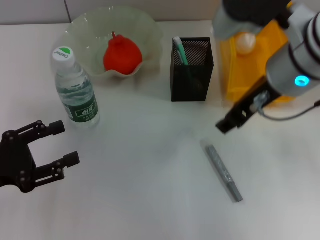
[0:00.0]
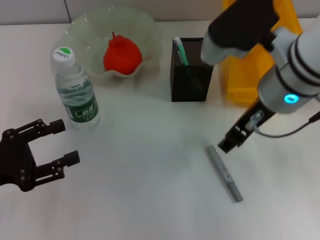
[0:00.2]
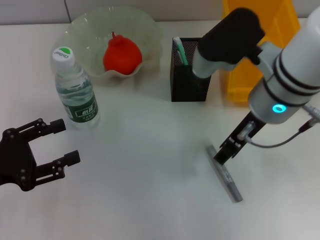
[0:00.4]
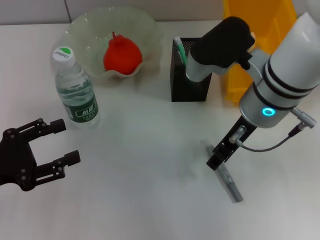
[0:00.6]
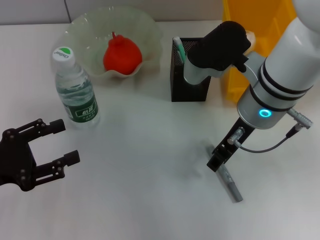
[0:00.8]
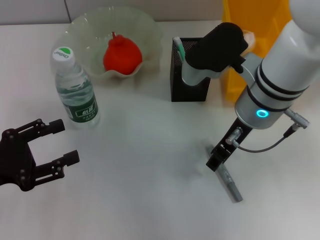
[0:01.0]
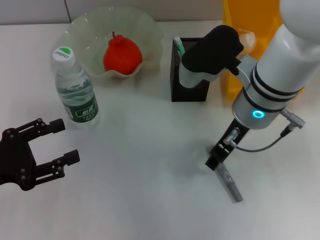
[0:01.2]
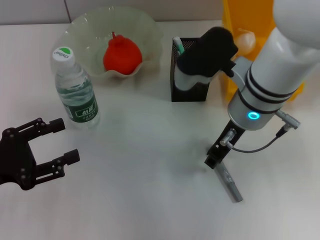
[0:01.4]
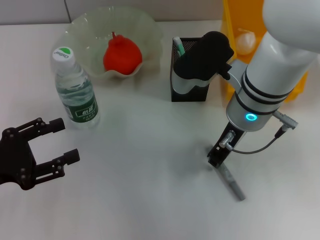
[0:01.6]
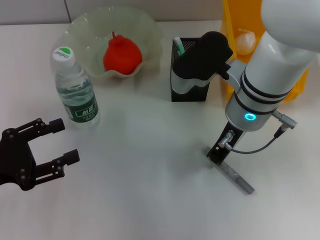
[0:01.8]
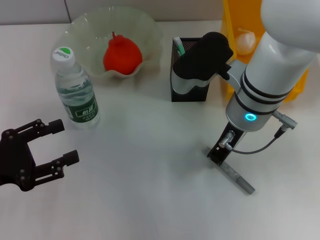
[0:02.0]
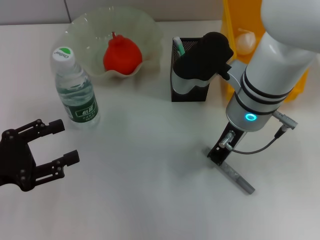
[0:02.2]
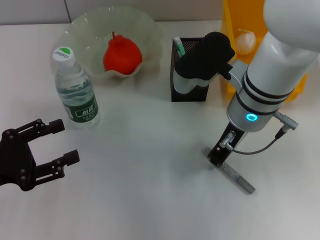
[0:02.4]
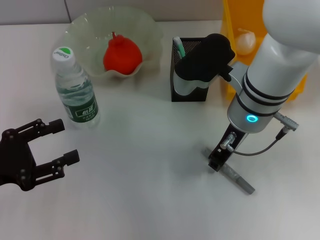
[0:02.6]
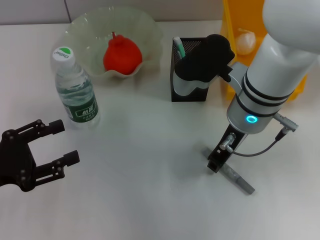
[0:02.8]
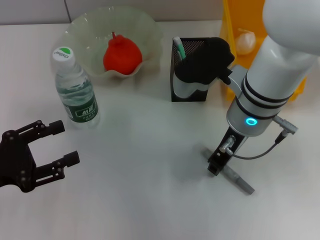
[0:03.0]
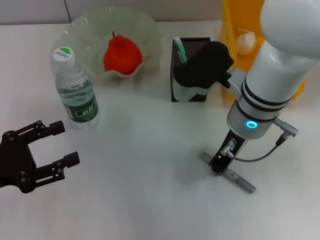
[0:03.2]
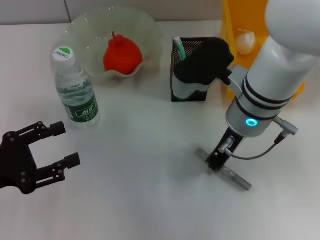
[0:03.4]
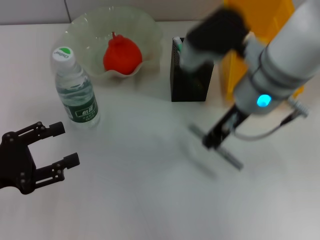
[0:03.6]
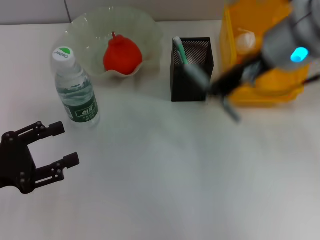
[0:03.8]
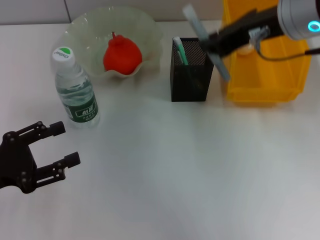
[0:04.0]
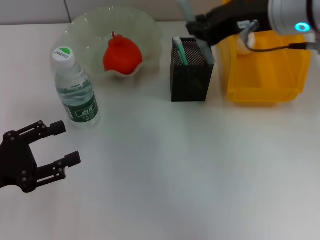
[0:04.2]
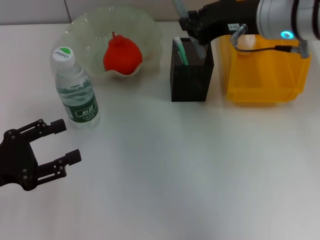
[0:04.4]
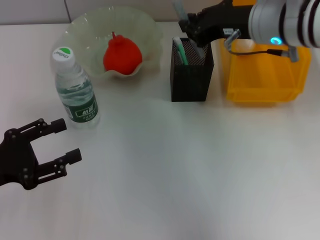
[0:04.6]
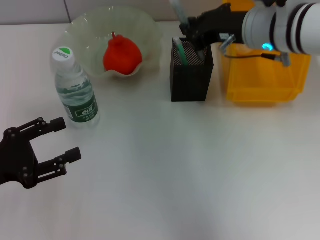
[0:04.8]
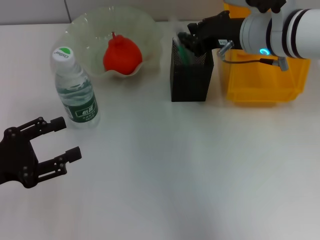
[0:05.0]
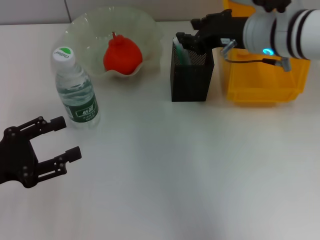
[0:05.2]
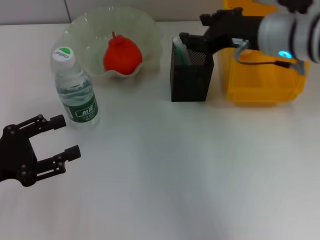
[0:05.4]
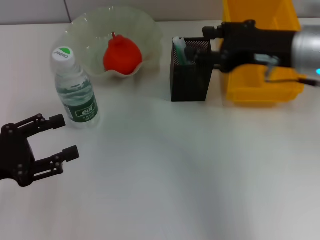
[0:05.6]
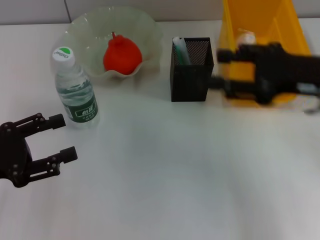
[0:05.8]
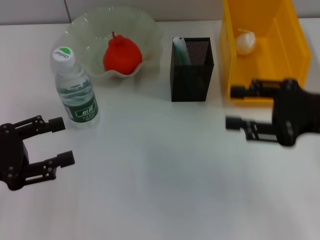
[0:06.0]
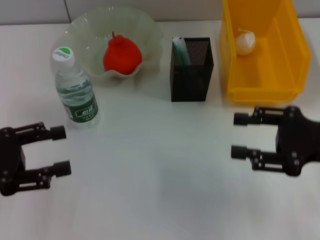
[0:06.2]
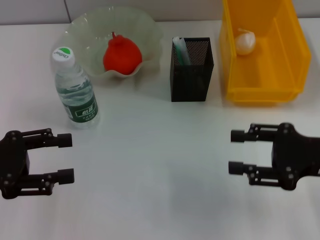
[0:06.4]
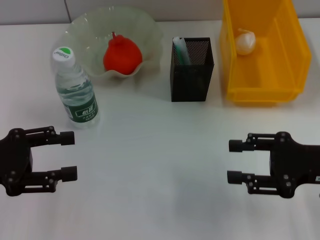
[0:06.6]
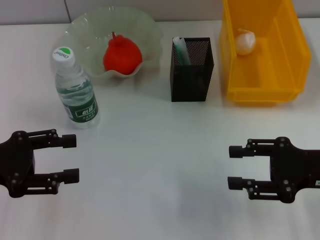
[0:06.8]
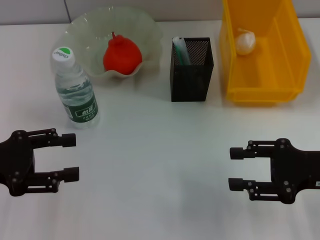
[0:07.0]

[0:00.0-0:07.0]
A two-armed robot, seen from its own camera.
Step, 0:00.0 to 0:03.0: Grab the gray glue with the right hand.
Step, 0:03.2 to 0:05.0: Place the gray glue into the pen holder with the right hand.
0:00.0 to 0:01.4: The right gripper goes roughly 5 cm downward.
0:01.4 to 0:02.8: The right gripper closes.
0:02.8 to 0:04.2: The right gripper shifts about 10 cm upward and to the right.
0:04.2 to 0:05.6: The right gripper shifts approximately 5 cm downward, and opens its fingers.
0:05.6 to 0:07.0: The right gripper shifts roughly 15 cm downward, backward and to the right.
